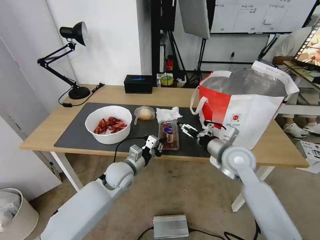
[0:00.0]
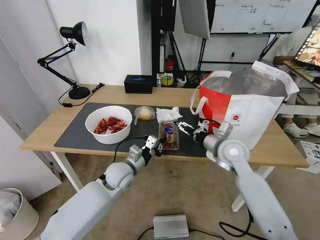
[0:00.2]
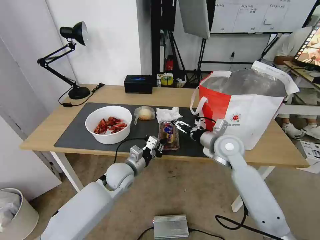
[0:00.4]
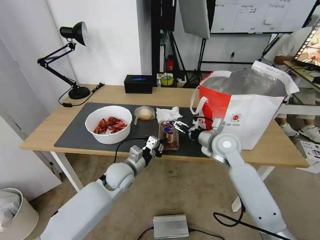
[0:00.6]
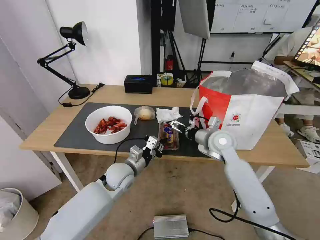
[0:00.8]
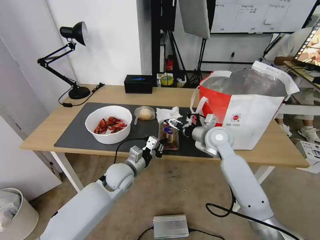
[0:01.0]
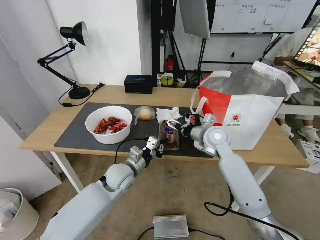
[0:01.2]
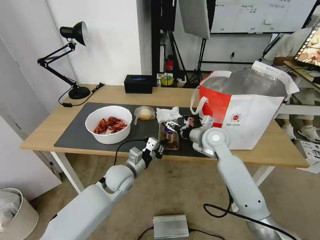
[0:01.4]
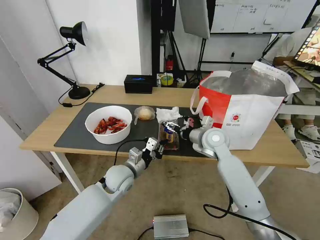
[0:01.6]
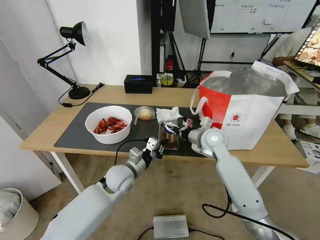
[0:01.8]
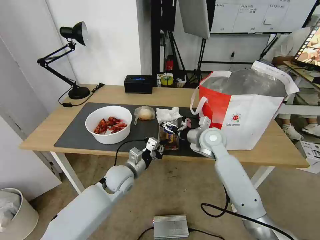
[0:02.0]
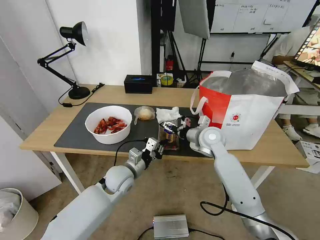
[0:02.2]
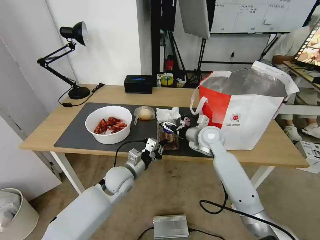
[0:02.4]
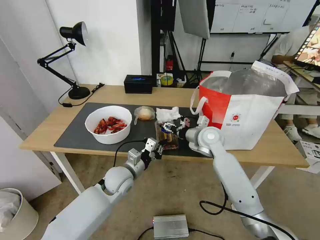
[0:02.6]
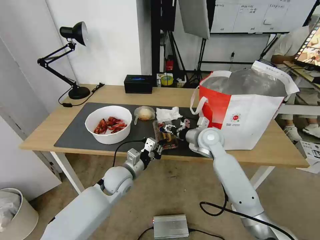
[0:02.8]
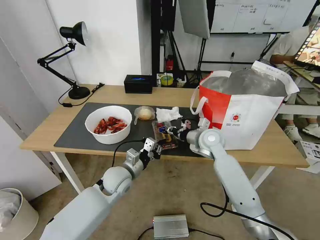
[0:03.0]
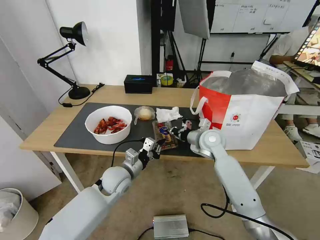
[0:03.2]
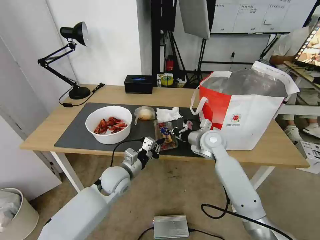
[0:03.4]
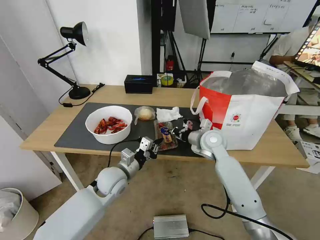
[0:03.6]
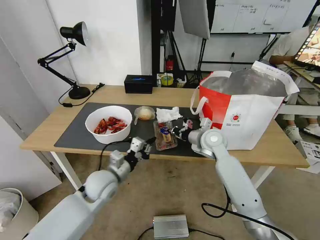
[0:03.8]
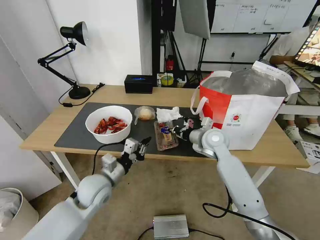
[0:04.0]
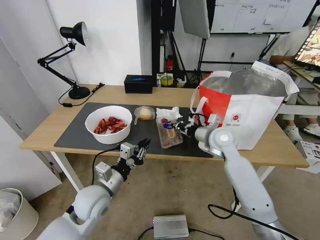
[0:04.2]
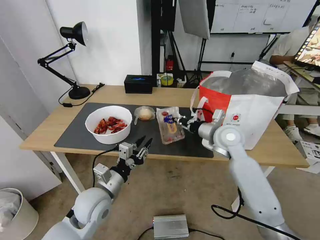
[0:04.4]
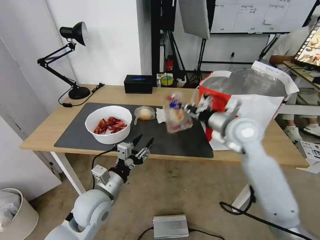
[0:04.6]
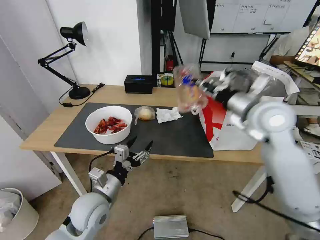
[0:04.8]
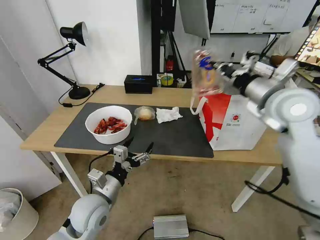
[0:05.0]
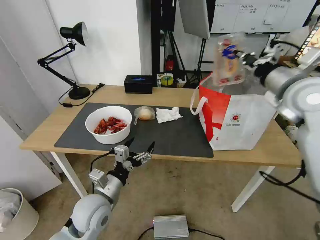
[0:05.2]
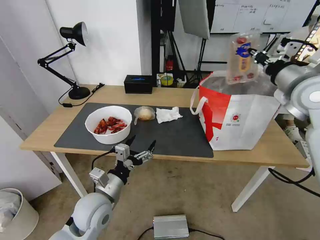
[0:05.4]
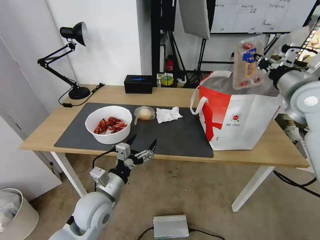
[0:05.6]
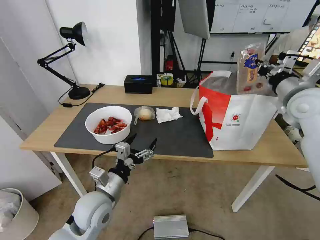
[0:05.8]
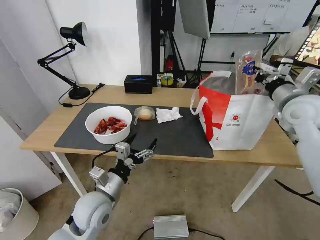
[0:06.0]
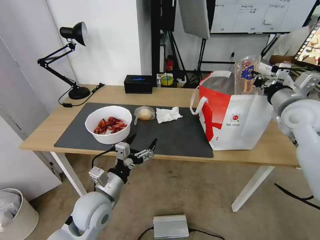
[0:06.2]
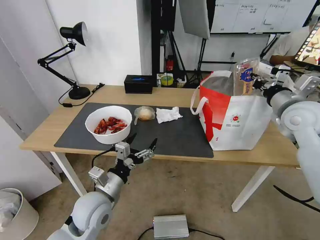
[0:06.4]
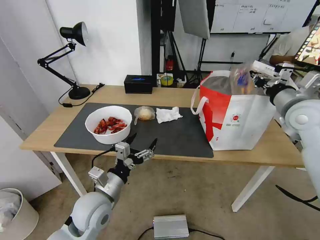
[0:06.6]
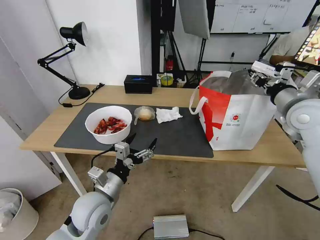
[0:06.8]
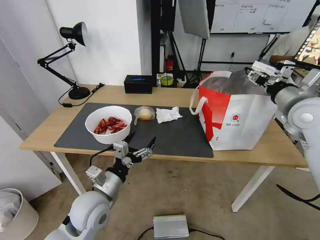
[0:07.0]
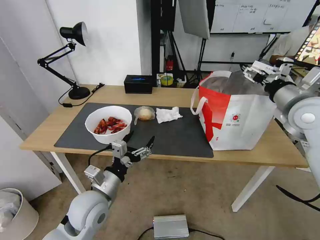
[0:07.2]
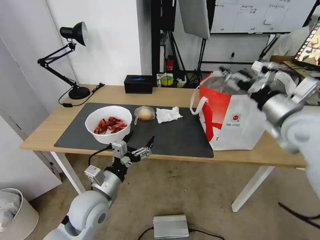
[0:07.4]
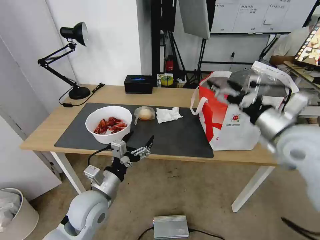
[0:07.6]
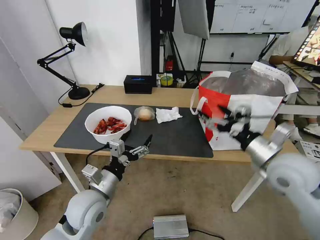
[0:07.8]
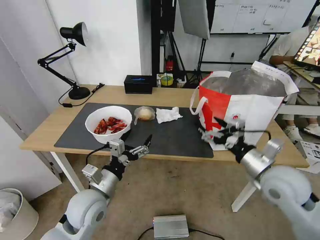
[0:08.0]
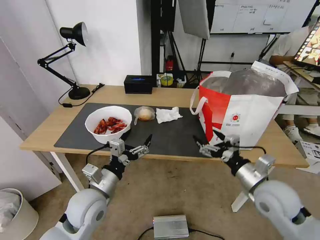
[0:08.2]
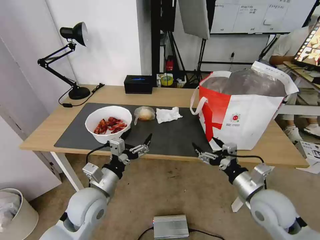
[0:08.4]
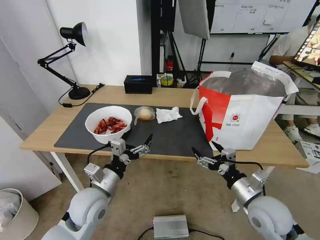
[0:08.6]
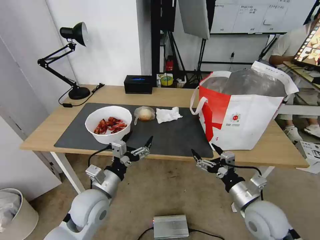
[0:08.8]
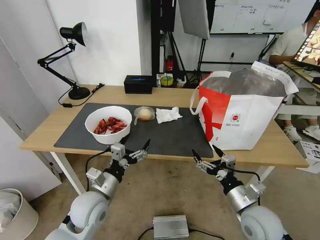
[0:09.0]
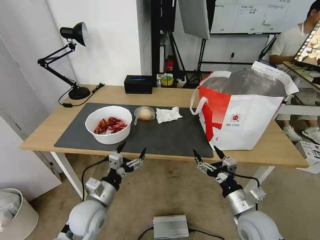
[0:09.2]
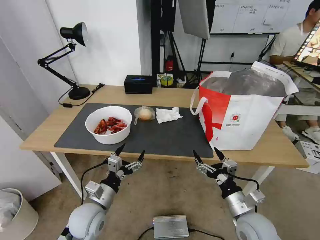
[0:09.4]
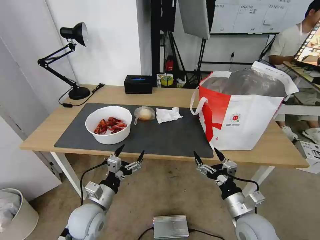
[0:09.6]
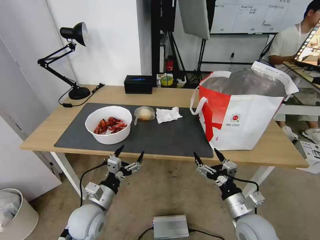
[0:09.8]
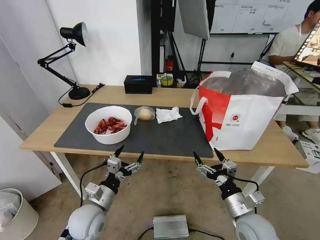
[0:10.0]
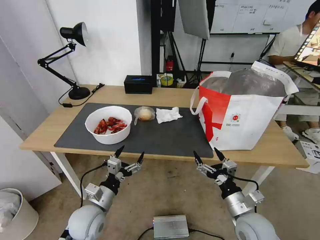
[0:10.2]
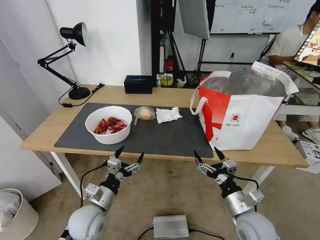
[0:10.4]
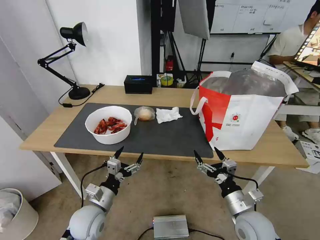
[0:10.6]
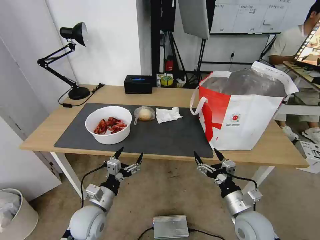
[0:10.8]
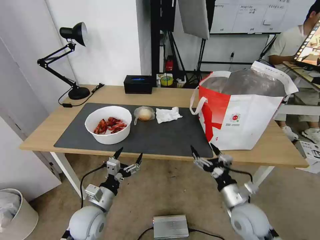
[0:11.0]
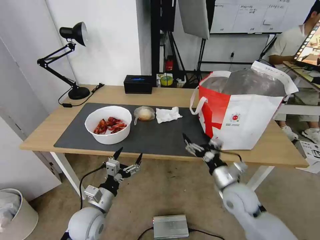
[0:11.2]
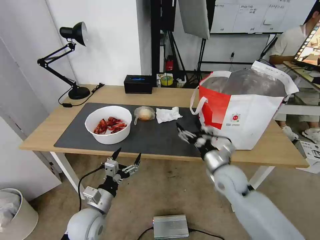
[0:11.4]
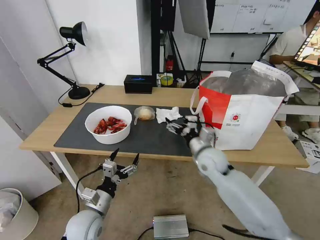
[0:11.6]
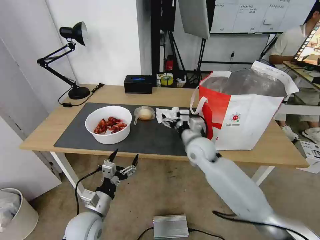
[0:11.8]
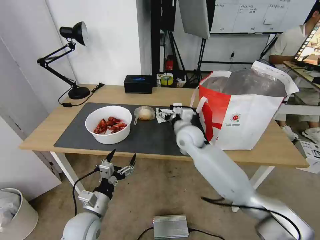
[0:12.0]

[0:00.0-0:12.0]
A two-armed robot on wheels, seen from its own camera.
Task of the whole recording: Pick up the trash from the table and place it into the takeout bag.
0:00.0 to 0:01.6: The right gripper goes about 10 cm forward.
0:01.6 to 0:03.0: The right gripper closes its fingers.
0:03.0 to 0:04.4: The right gripper shifts approximately 5 cm upward, while the left gripper is displaced backward by some 10 cm, and opens up.
0:04.4 to 0:06.0: The right gripper is displaced to the right and upward by about 20 cm; the left gripper opens.
0:06.0 to 0:07.6: The right gripper heads backward and to the left, covering approximately 10 cm, and opens its fingers.
0:07.6 to 0:09.0: The right gripper is displaced downward and backward by about 25 cm.
0:09.0 to 0:10.4: The left gripper moves about 5 cm.
0:10.4 to 0:12.0: The right gripper shifts some 30 cm forward and to the left.

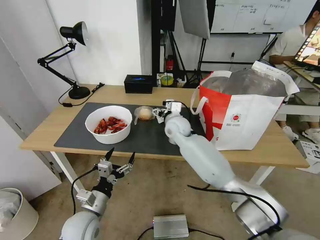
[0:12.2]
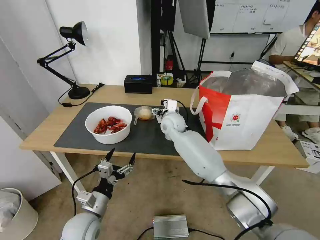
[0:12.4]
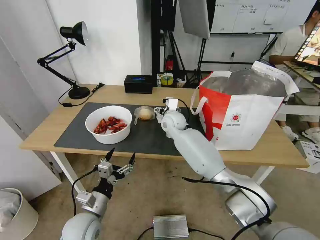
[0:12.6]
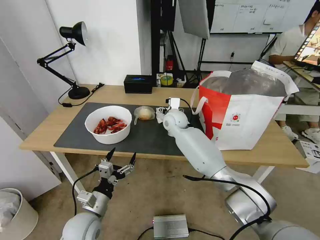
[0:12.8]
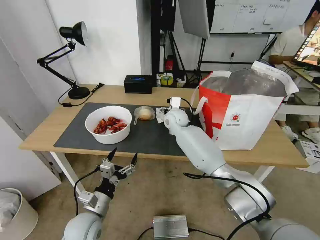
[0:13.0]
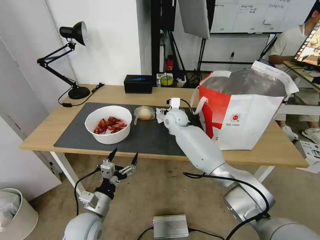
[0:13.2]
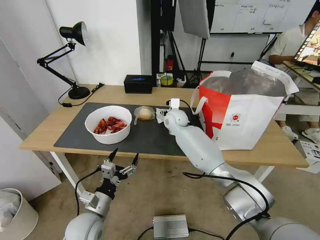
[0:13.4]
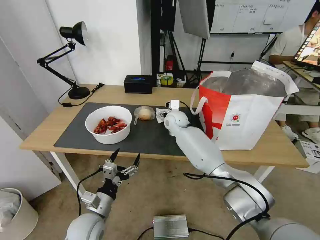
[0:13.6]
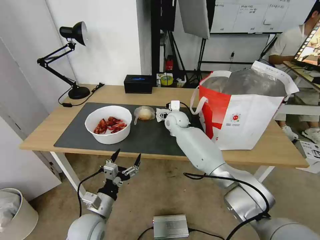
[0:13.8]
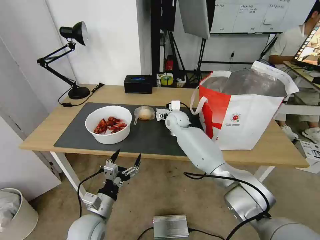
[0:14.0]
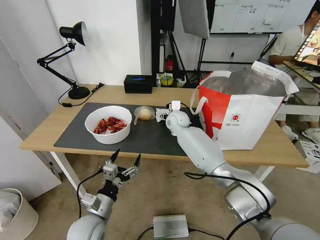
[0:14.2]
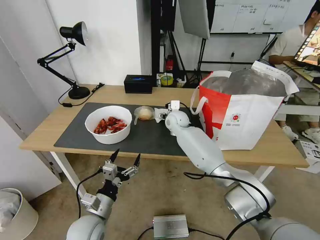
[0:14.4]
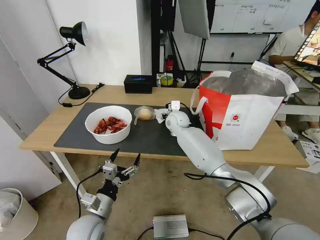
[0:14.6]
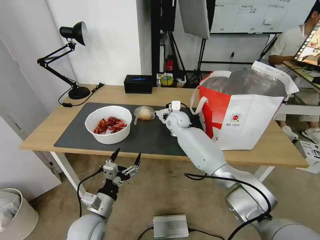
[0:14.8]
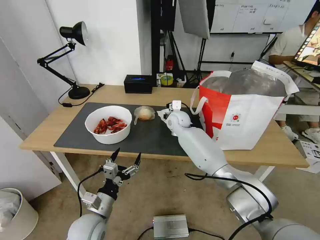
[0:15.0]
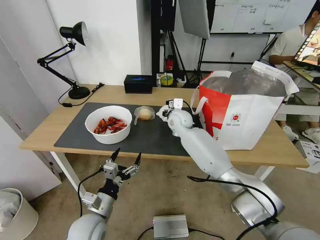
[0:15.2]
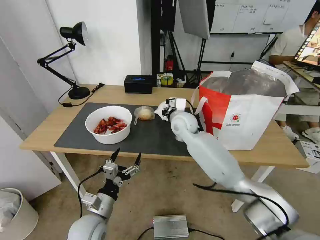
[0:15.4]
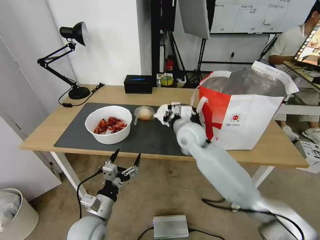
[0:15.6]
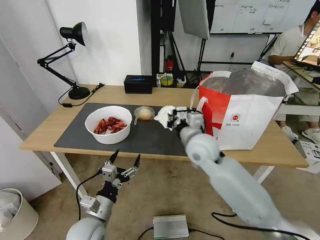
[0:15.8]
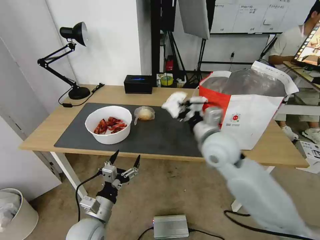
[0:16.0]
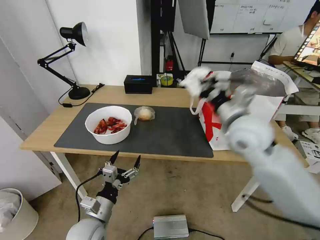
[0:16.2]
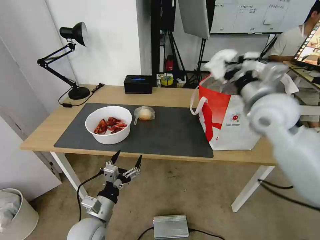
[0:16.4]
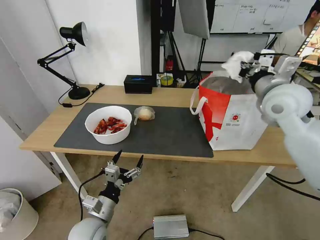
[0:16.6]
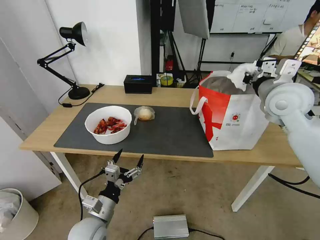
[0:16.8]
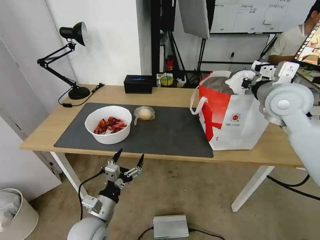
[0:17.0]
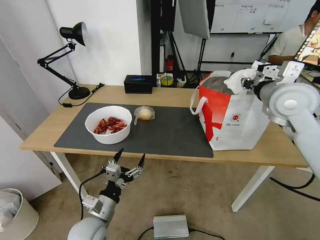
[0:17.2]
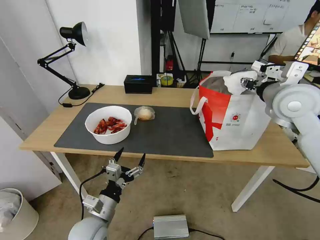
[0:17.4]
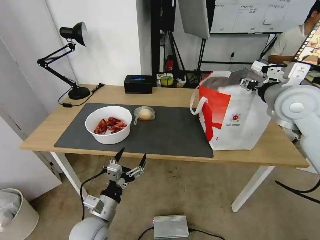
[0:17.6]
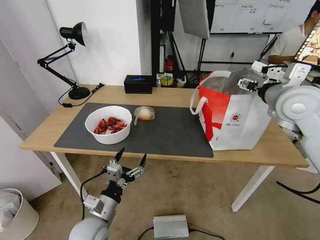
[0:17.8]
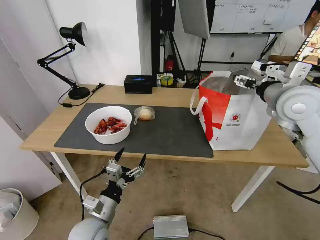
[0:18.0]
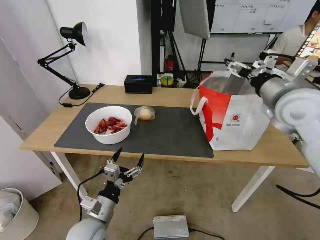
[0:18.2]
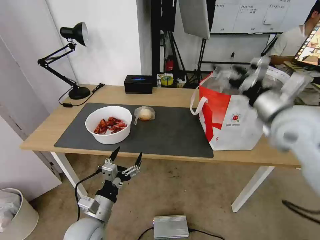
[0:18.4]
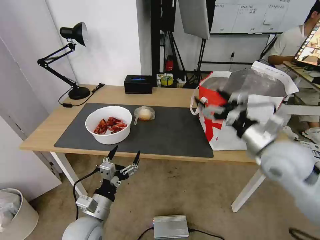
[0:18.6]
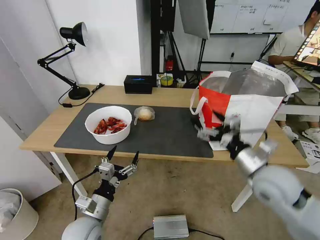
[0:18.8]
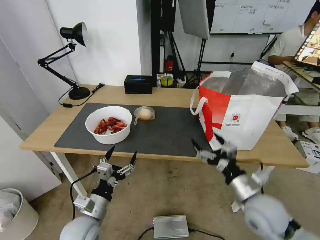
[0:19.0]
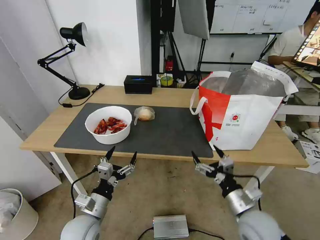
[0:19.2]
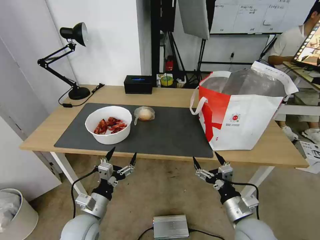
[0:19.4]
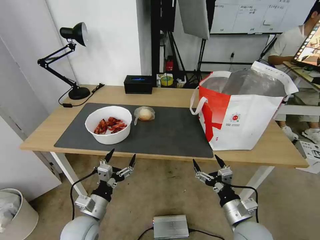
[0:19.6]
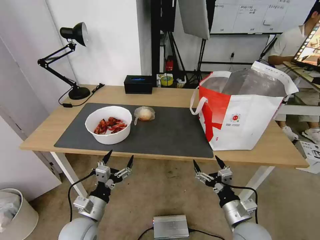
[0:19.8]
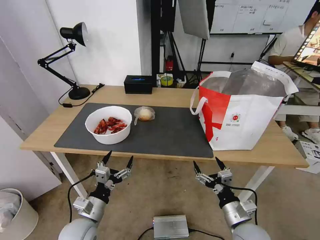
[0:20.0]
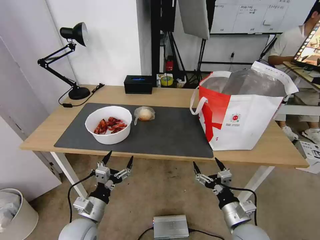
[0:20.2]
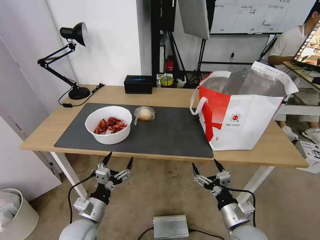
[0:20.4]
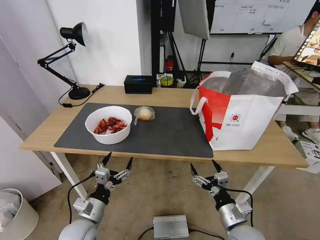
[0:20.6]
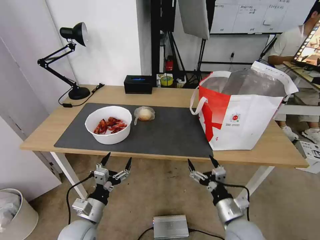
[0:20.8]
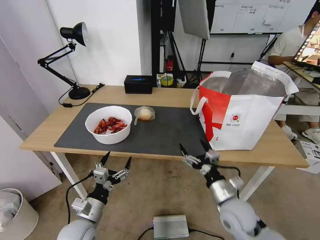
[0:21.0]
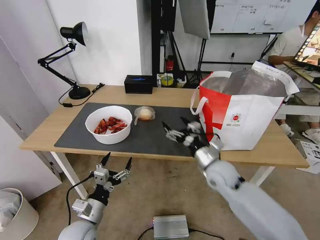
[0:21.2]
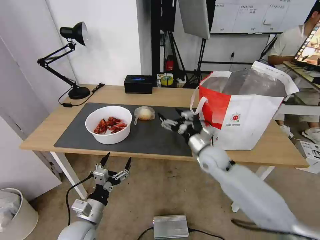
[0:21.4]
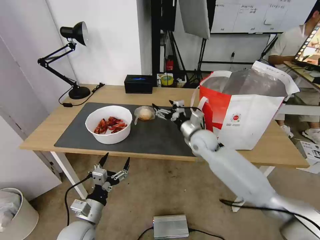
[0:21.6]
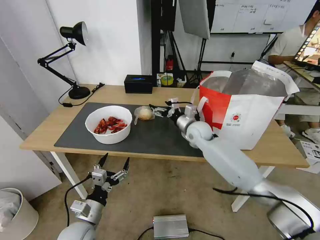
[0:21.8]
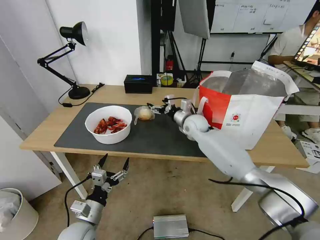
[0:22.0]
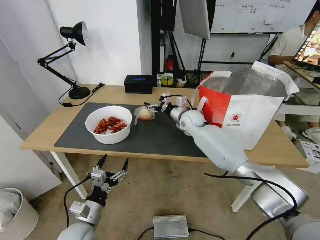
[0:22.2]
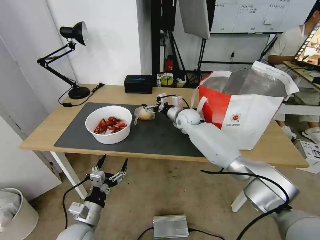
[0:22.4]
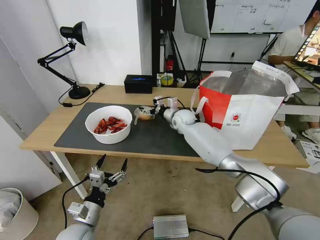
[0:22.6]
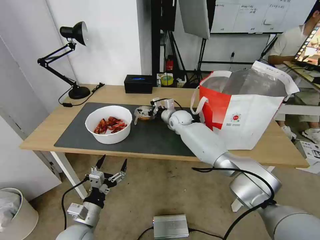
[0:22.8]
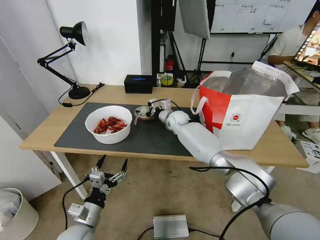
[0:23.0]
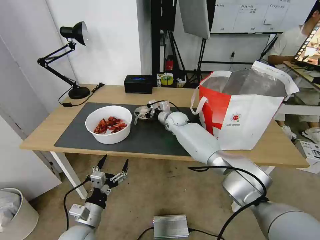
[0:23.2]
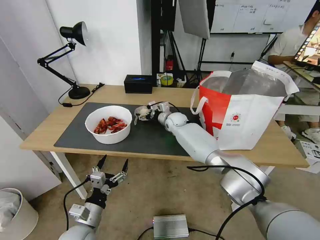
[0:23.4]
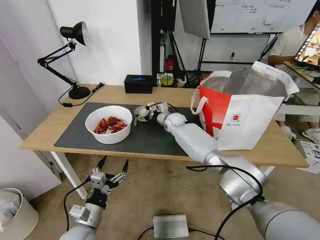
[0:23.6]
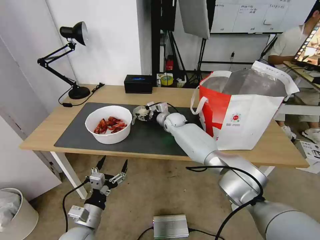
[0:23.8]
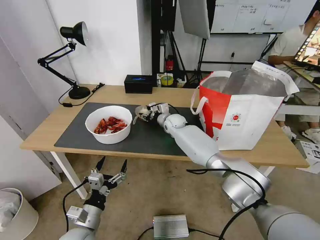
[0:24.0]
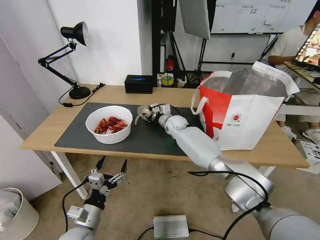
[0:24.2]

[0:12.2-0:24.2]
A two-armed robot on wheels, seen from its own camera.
Task of the whole recording: Pick up the trash from the table and place it into the takeout bag.
0:12.2 to 0:13.8: The right gripper is displaced forward by some 5 cm.
0:13.8 to 0:15.2: The right gripper closes.
0:15.2 to 0:16.6: The right gripper moves to the right, upward and backward, about 35 cm.
0:16.6 to 0:18.2: The right gripper opens its fingers.
0:18.2 to 0:19.8: The right gripper travels downward and backward by roughly 40 cm.
0:19.8 to 0:21.2: The right gripper is displaced forward and upward by about 15 cm.
0:21.2 to 0:22.6: The right gripper goes roughly 25 cm forward.
0:22.6 to 0:24.2: The right gripper closes.
